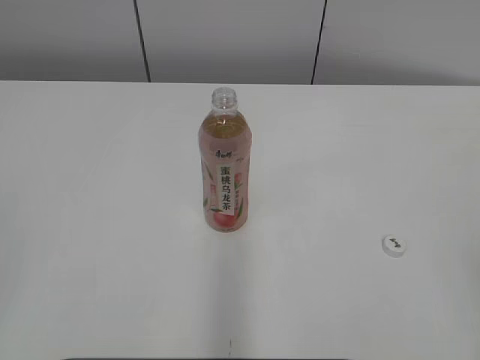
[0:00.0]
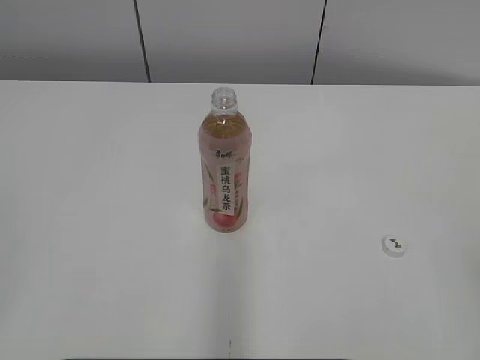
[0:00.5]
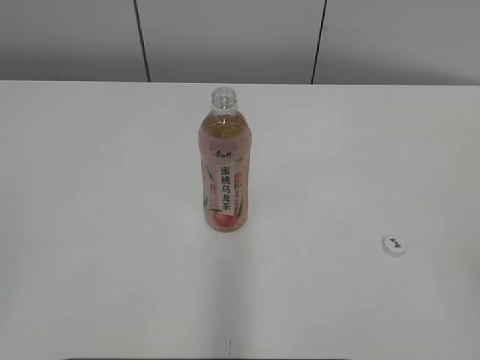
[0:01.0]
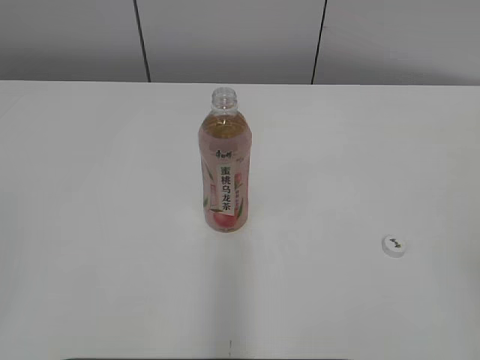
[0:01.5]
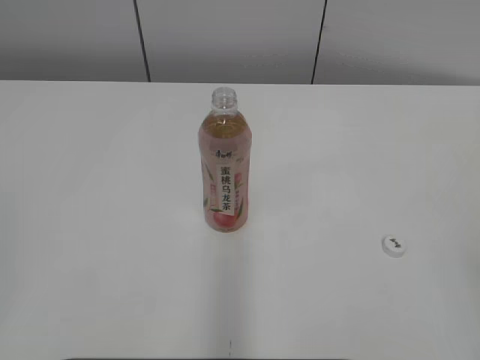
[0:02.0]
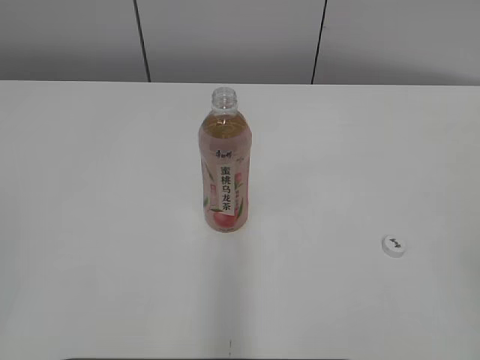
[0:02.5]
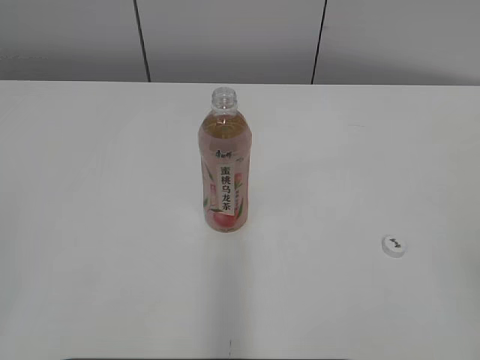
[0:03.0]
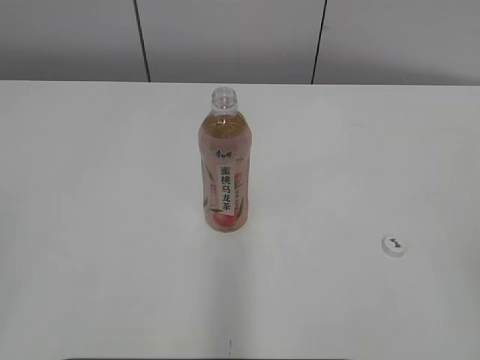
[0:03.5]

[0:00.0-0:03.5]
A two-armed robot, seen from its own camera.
0:00.0 to 0:03.5: Both grippers stay put.

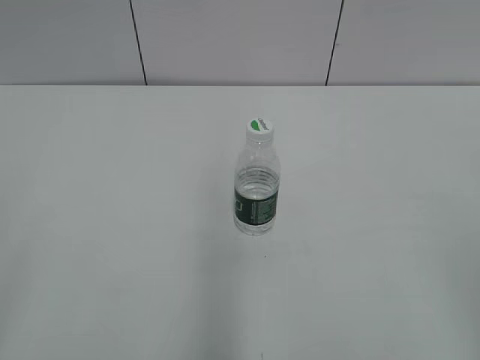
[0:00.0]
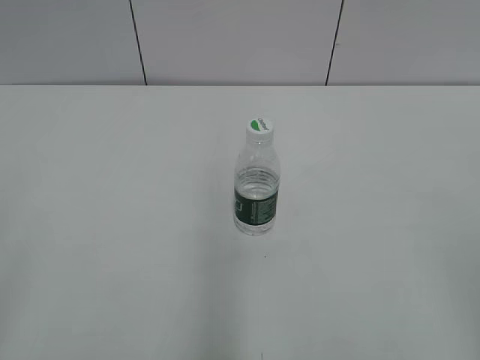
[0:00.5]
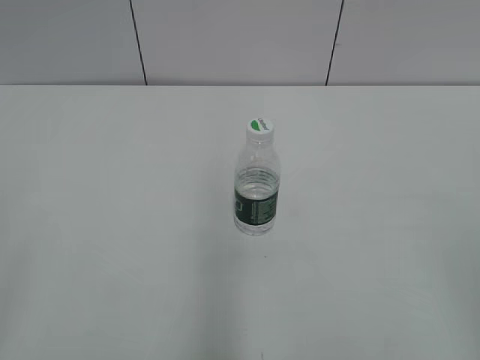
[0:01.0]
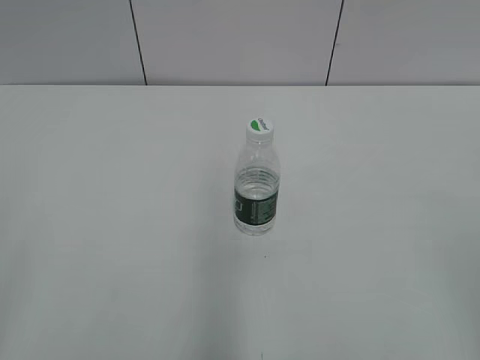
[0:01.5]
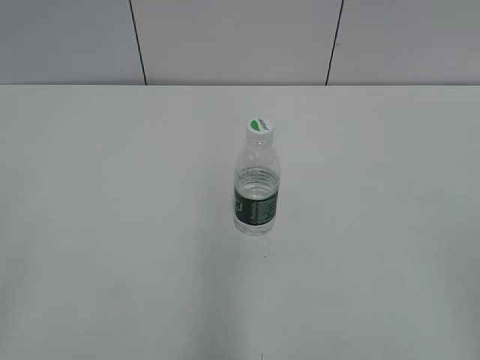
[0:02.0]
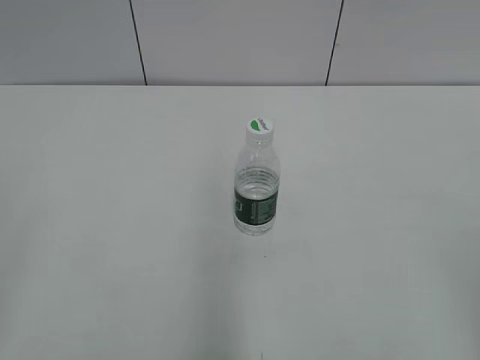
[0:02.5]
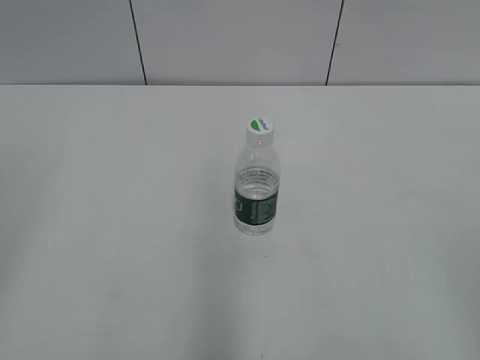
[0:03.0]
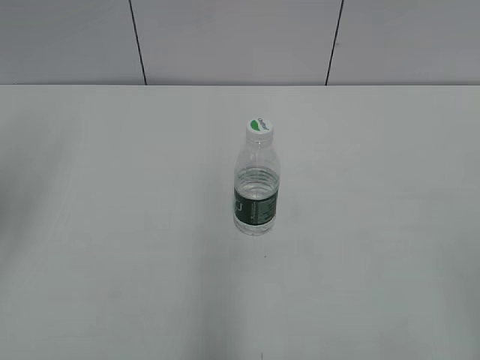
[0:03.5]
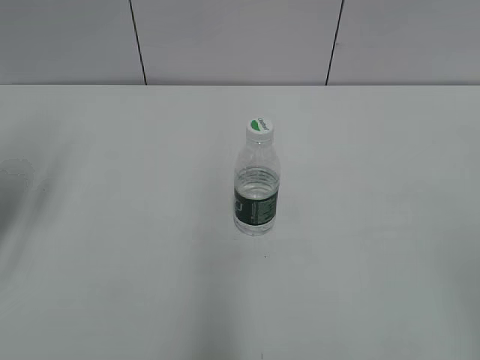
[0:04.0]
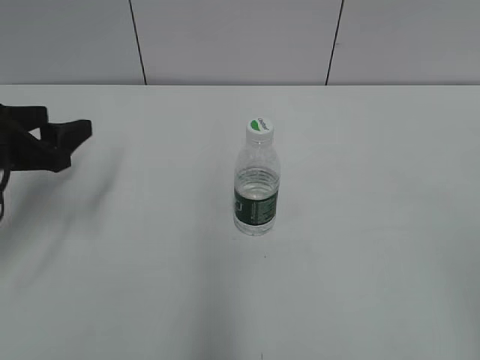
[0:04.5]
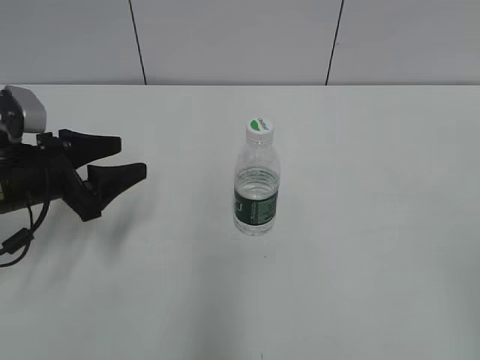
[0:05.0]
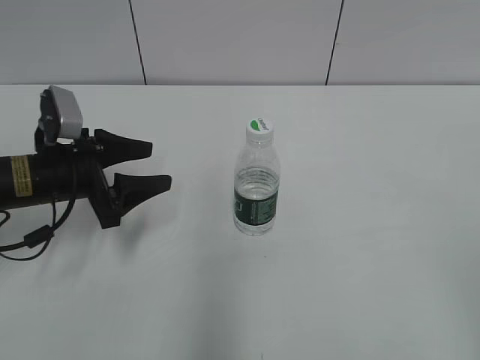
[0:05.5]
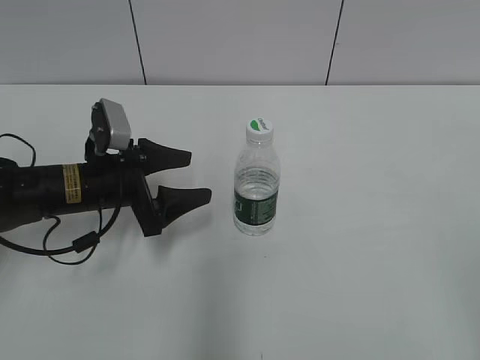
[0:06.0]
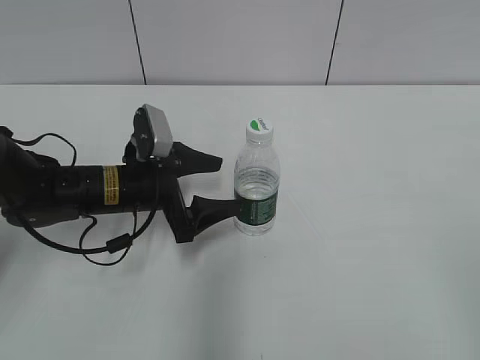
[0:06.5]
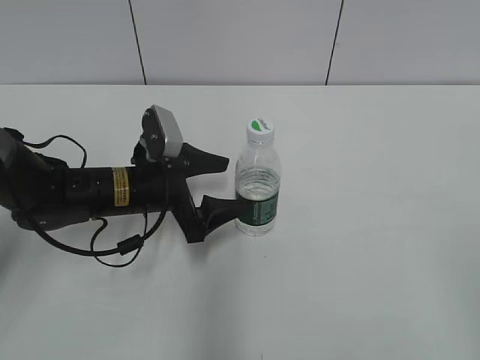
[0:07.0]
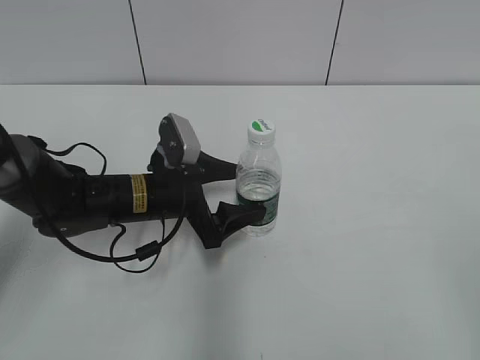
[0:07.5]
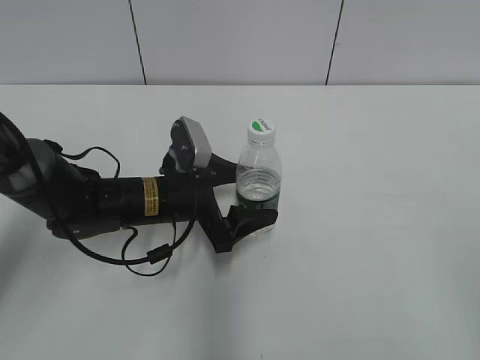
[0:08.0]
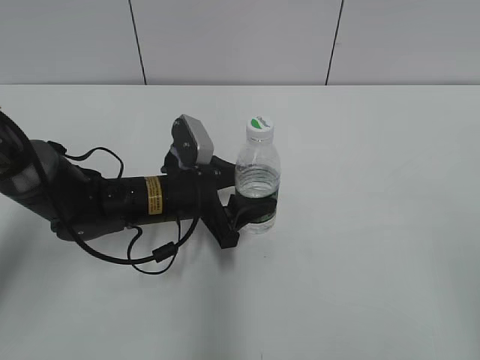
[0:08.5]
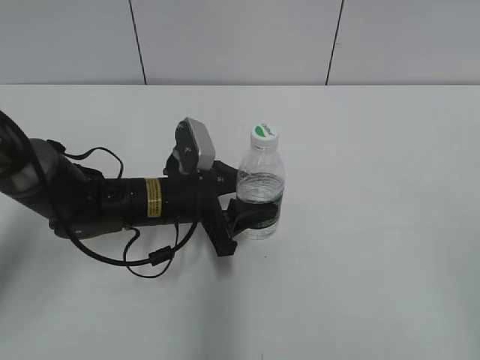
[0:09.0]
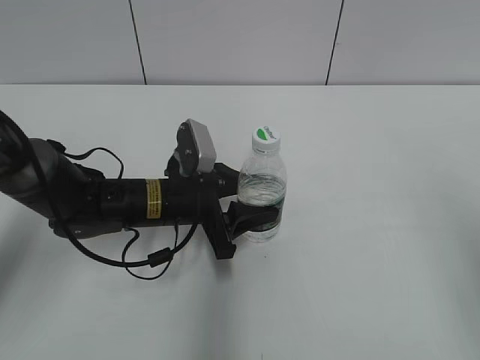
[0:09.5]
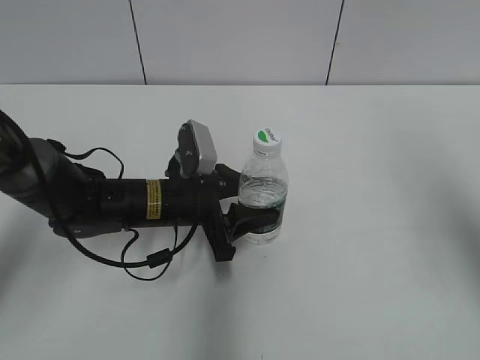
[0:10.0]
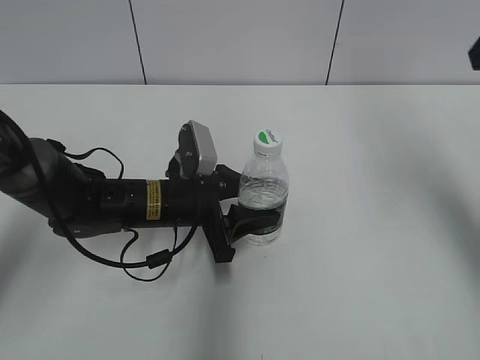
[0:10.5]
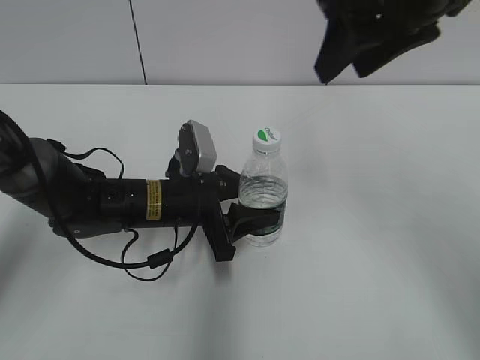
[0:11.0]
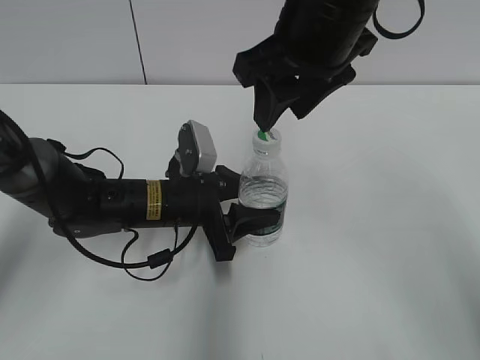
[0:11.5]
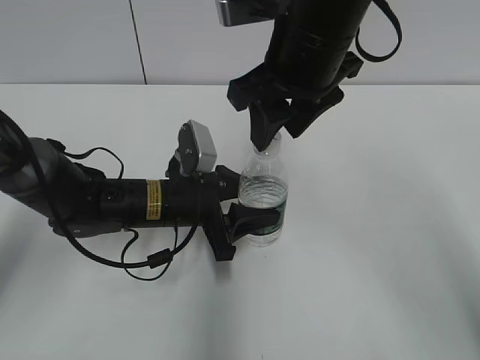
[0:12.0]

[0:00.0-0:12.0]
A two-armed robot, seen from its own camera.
Step, 0:00.0 to 0:10.0: Grasp the bottle and move it to the center of the table with the left gripper.
0:02.0 to 0:04.0: The left gripper is displaced forward by approximately 25 cm.
0:04.0 to 0:06.0: The left gripper goes roughly 20 cm to the right, downward and forward.
0:06.0 to 0:08.0: The left gripper shifts roughly 10 cm to the right.
0:08.0 to 0:10.0: The left gripper closes up; the right gripper travels forward by roughly 20 cm, and closes its fingers.
0:10.0 to 0:12.0: The right gripper goes approximately 25 cm to the left and forward.

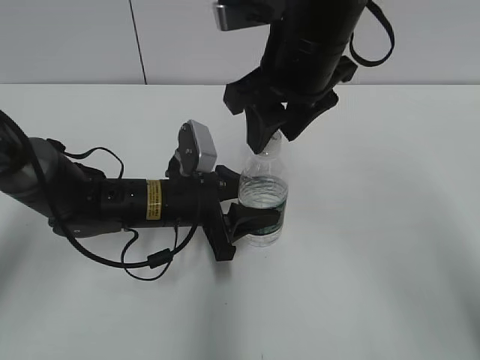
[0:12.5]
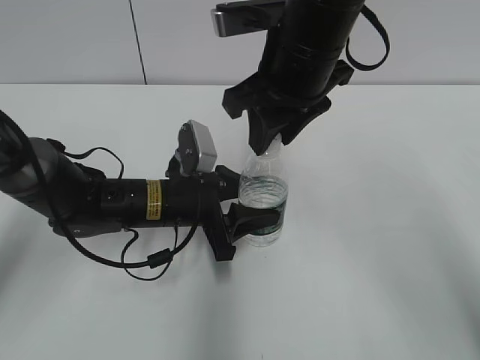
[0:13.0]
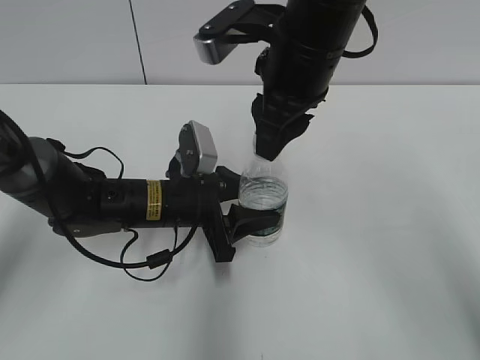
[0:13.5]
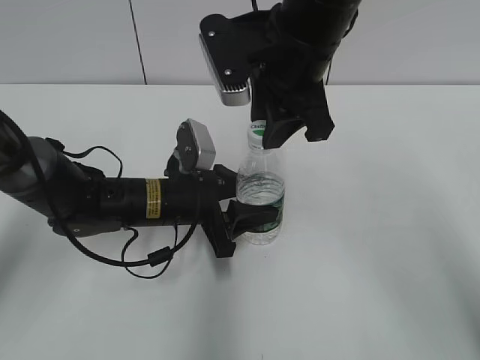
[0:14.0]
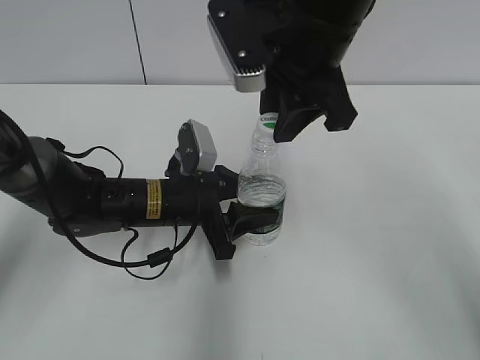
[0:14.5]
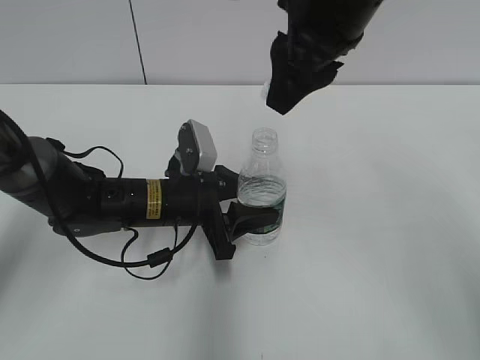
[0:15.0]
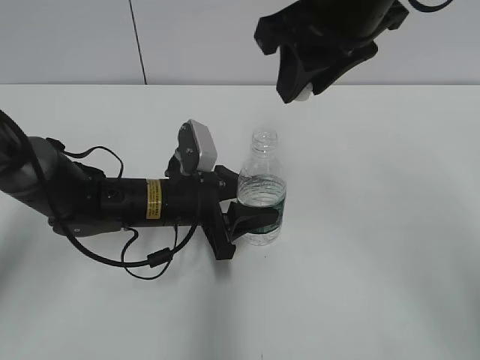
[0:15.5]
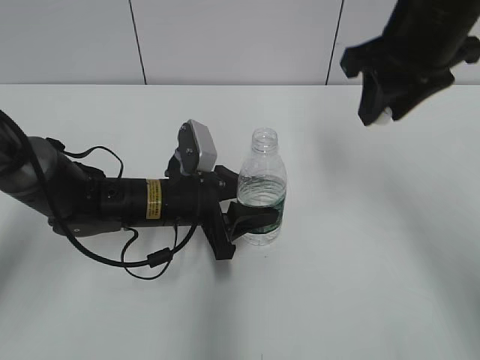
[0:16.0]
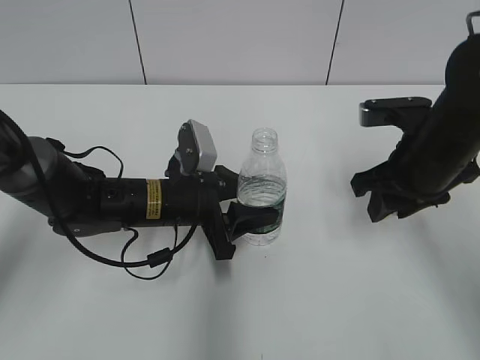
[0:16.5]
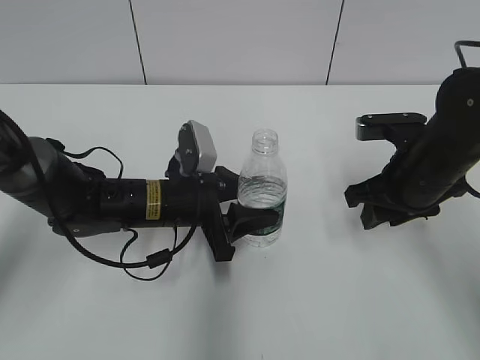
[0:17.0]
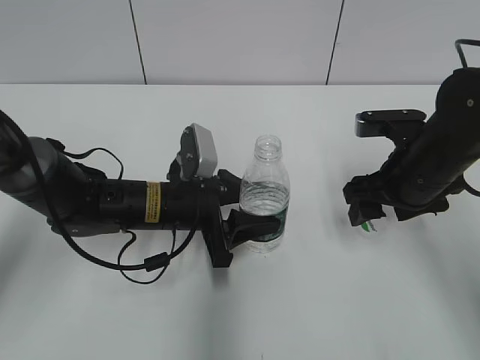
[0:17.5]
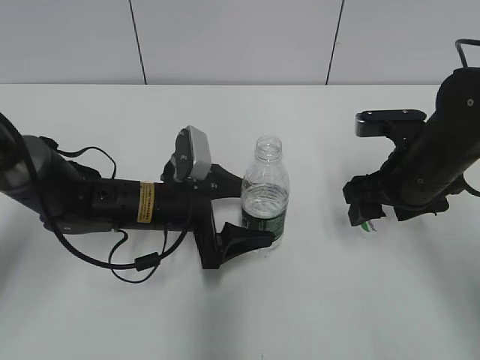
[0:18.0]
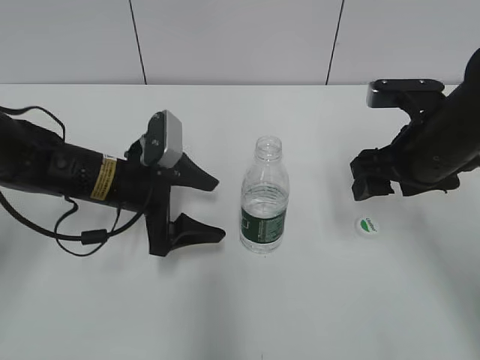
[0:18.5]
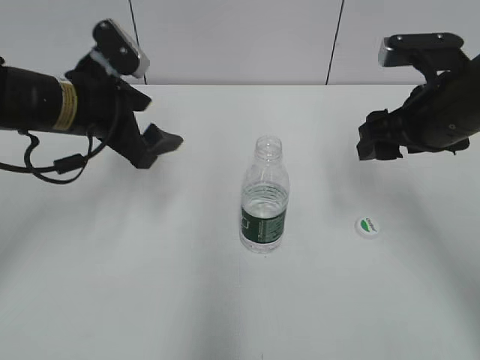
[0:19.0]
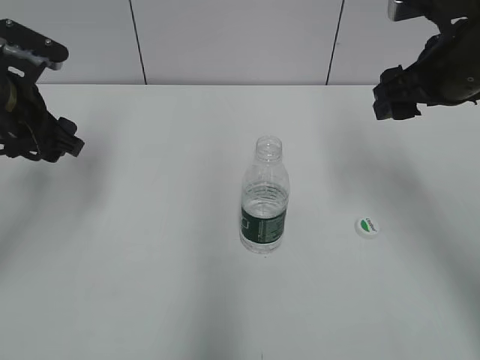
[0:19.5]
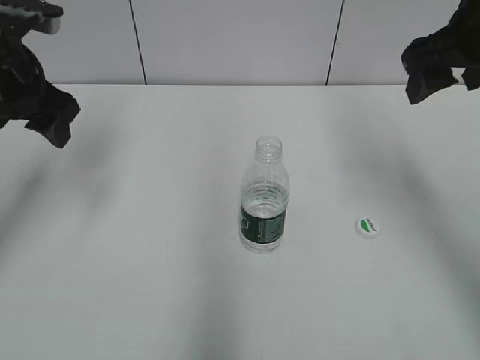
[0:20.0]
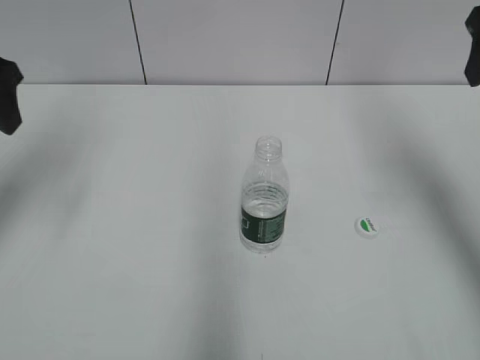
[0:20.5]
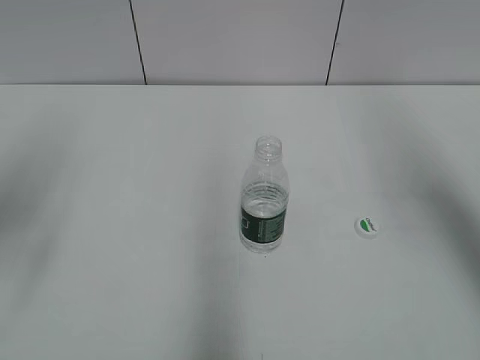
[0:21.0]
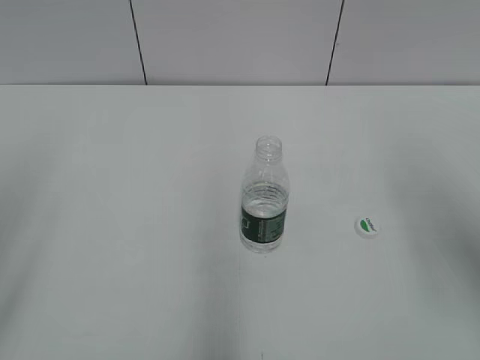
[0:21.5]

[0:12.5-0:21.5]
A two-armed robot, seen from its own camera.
Step, 0:12.5 to 0:14.5: Unscrew the bottle cap with the right gripper while holding the bottle with the left gripper.
Step, 0:15.0 to 0:17.0: Place the bottle cap on the table with the right gripper.
Step, 0:17.5 to 0:18.0: Place the bottle on the table with the left gripper.
0:12.5 to 0:14.5: The right gripper closes up.
0:14.5 to 0:17.0: The right gripper heads downward and to the right, covering approximately 20 cm.
0:17.0 to 0:19.5: The left gripper moves to the left and upward, roughly 20 cm, and opens its fingers, while the right gripper is displaced upward by approximately 10 cm, and opens up.
0:19.5 to 0:21.5: The left gripper is displaced backward and upward by about 25 cm; the right gripper is displaced backward, to the right and upward by approximately 15 cm.

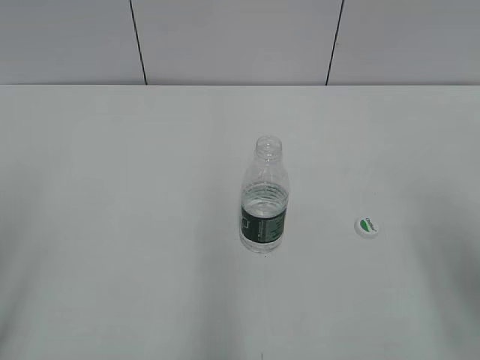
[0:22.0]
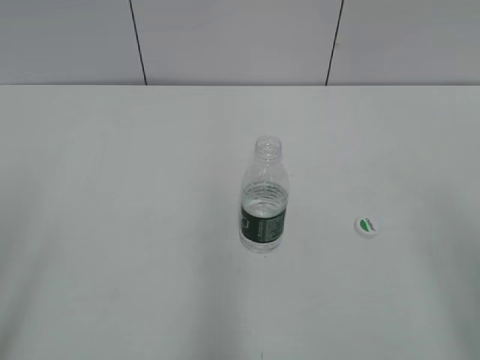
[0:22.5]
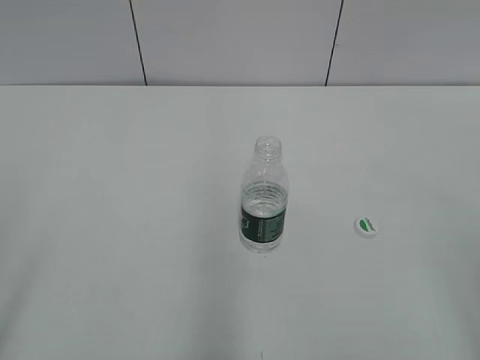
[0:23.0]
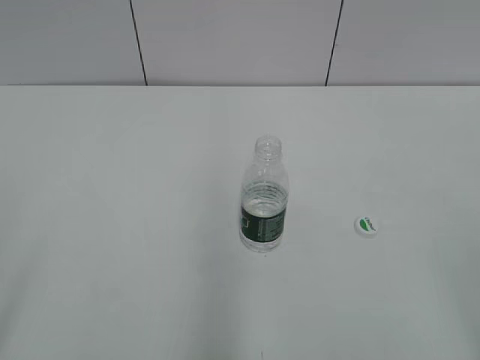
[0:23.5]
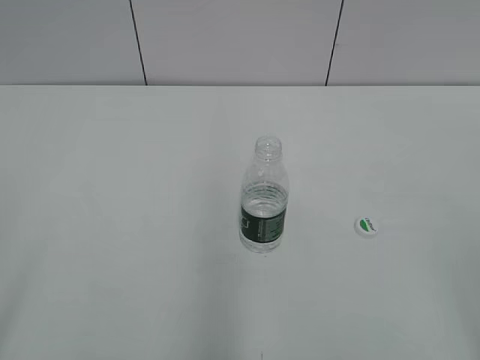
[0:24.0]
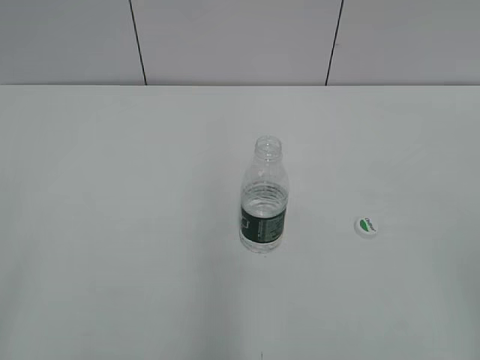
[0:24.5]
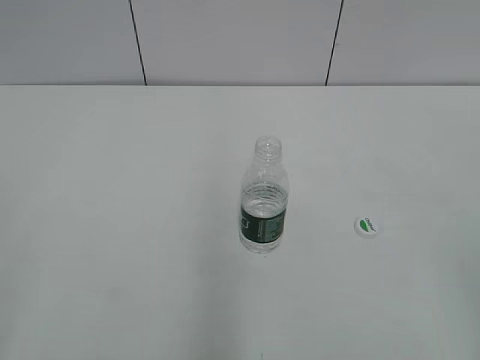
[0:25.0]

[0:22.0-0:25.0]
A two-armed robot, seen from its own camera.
0:22.0 to 0:23.5: The right gripper goes approximately 15 cm backward.
